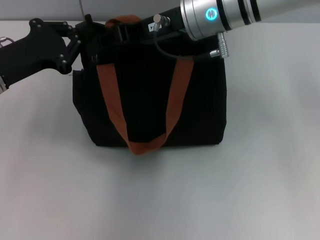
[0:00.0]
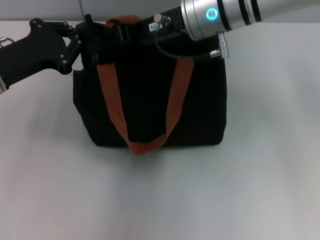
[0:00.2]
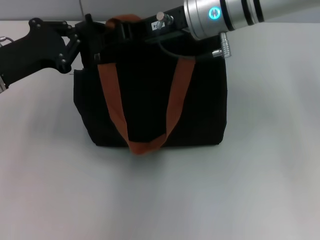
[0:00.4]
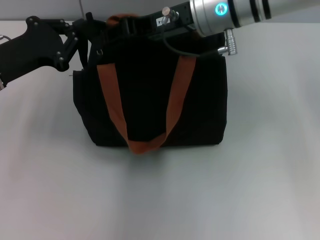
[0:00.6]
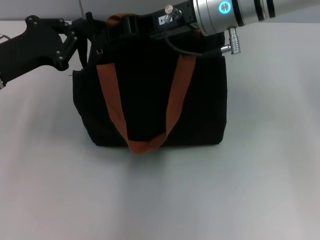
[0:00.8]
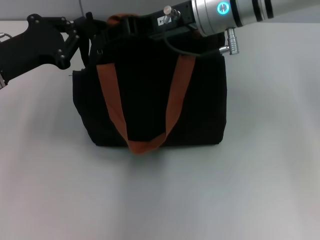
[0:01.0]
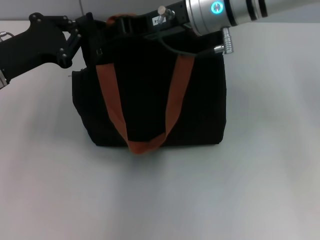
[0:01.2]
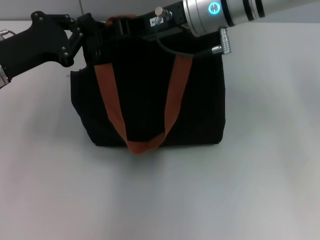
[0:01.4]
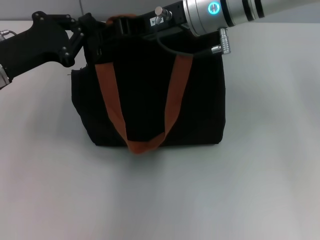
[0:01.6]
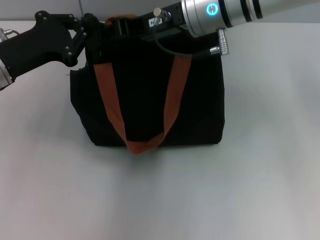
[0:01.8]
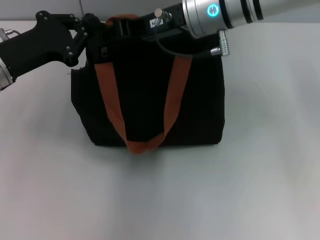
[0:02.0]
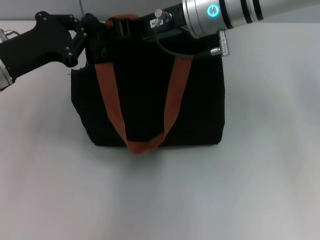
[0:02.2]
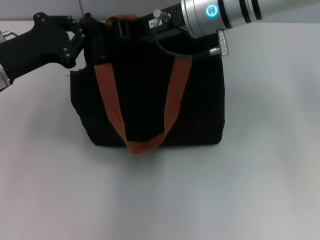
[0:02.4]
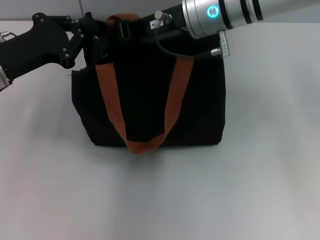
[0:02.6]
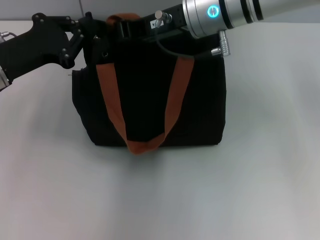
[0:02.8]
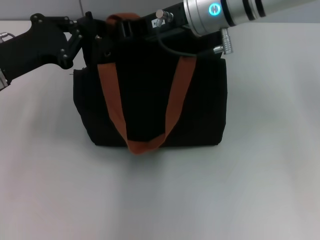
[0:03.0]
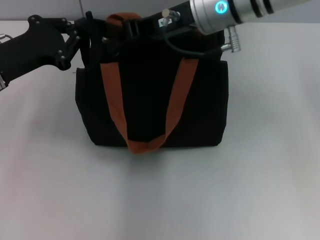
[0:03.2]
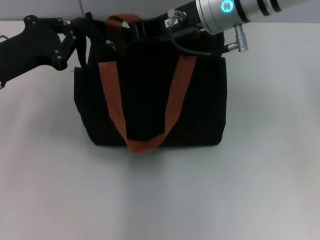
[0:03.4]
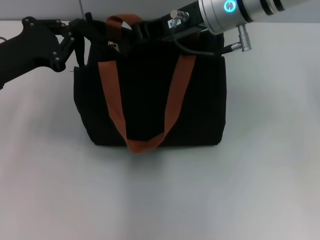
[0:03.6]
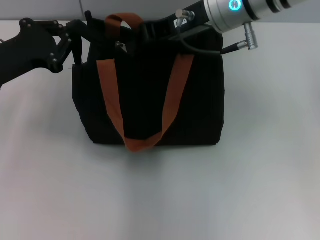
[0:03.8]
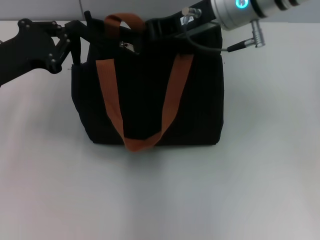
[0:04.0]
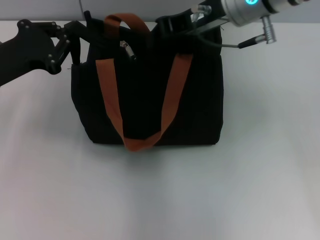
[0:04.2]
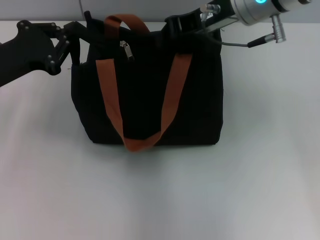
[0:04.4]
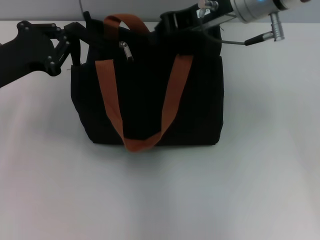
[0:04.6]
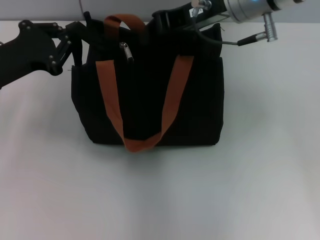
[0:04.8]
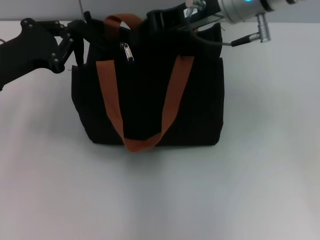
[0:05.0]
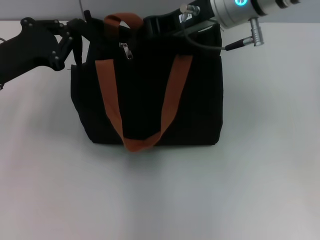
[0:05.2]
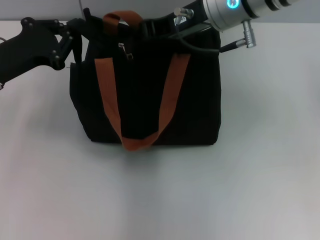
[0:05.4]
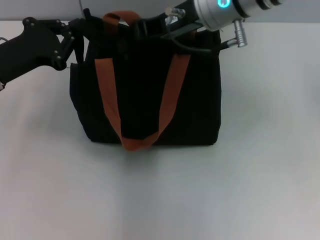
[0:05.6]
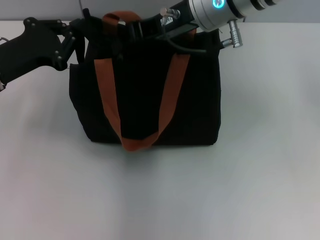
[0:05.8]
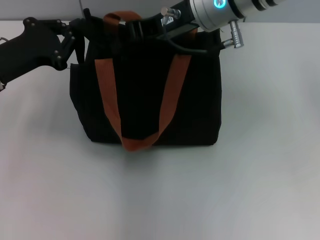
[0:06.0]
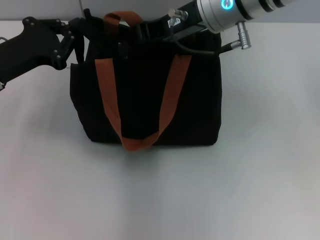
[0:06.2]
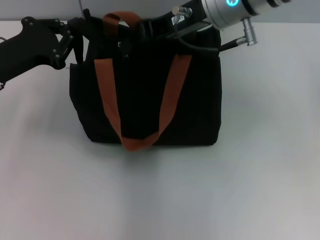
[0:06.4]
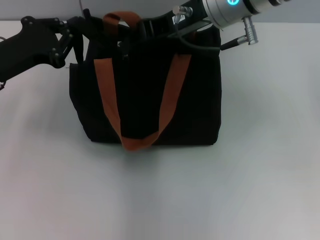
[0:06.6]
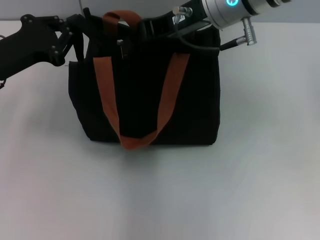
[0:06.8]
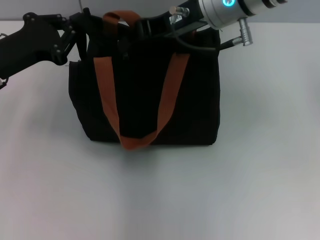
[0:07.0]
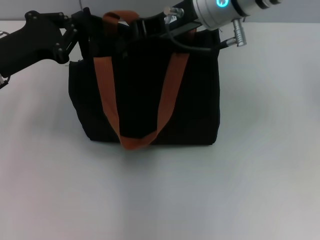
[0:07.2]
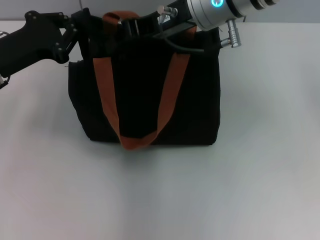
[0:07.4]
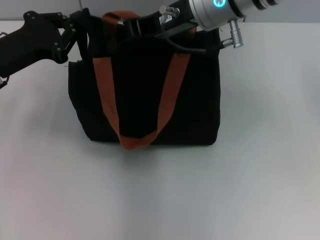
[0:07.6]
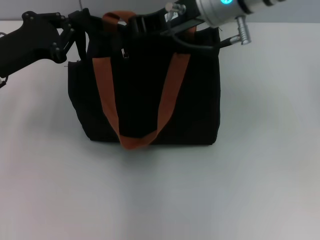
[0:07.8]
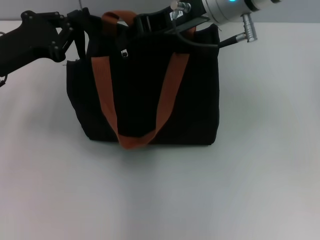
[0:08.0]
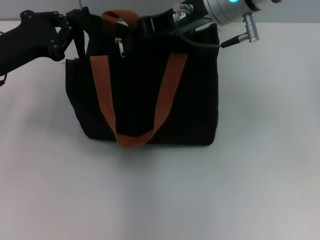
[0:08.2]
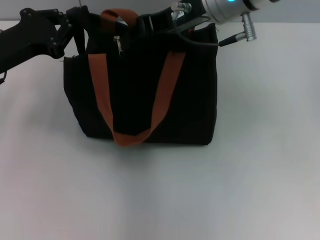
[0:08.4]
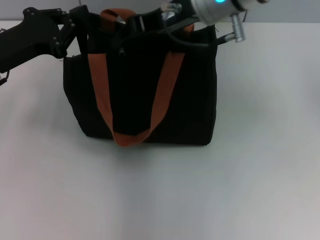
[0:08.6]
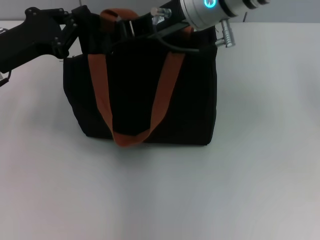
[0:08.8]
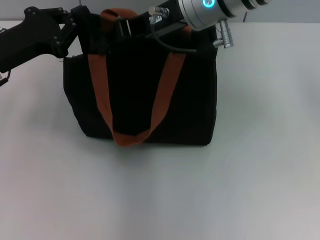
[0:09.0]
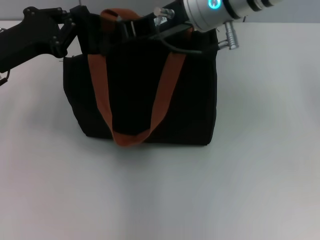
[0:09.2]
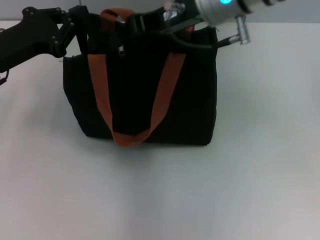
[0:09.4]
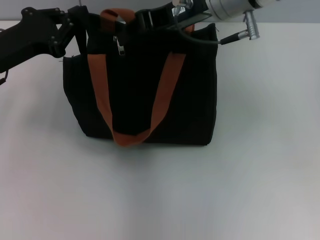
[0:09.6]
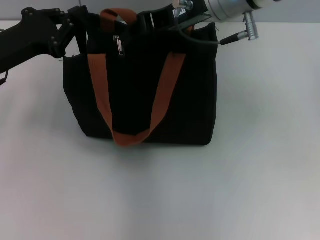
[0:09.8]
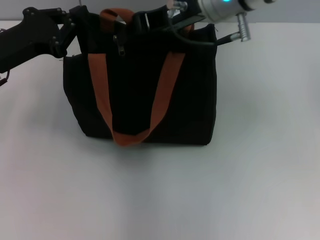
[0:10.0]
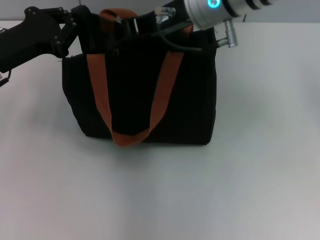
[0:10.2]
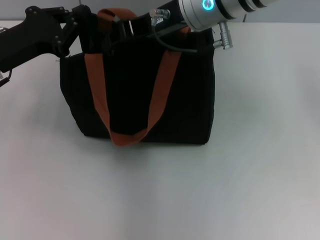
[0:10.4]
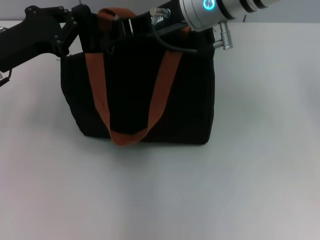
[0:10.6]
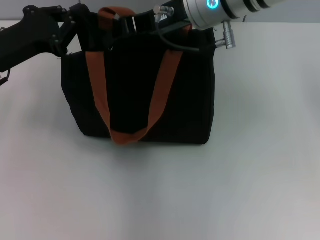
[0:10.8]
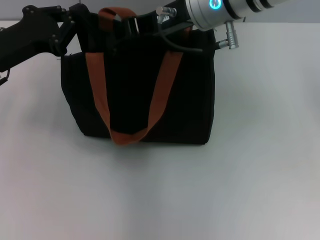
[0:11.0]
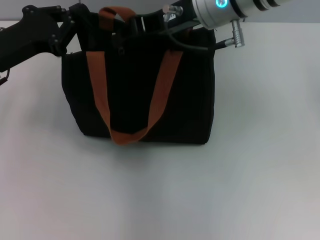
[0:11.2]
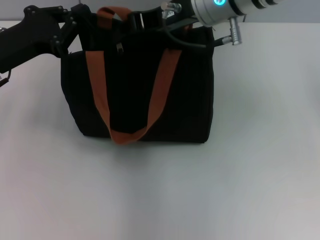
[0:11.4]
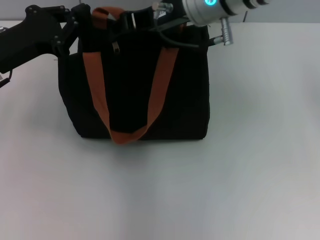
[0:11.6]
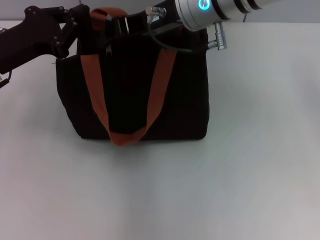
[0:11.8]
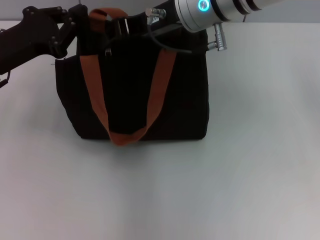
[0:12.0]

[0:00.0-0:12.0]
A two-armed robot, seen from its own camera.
0:00.0 to 0:01.6: The grippers make only small movements.
0:01.6 to 0:03.0: The right gripper closes up.
0:03.0 to 0:04.4: The right gripper shifts by some 5 cm.
0:04.4 to 0:06.0: The grippers move only a little.
0:06.0 to 0:07.6: Both grippers stay put.
0:07.6 to 0:09.0: The two grippers keep their place.
0:09.0 to 0:12.0: The grippers make only small movements.

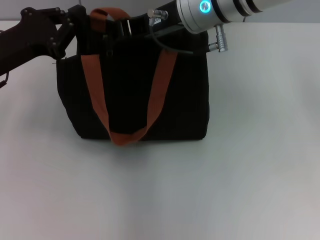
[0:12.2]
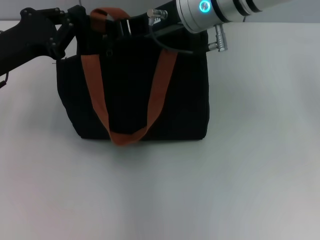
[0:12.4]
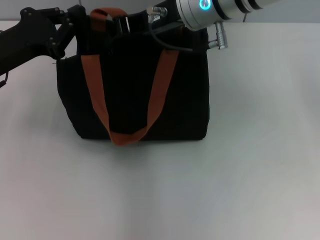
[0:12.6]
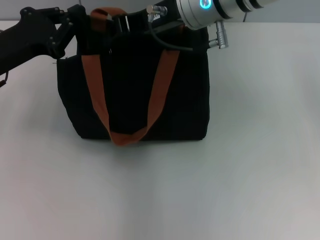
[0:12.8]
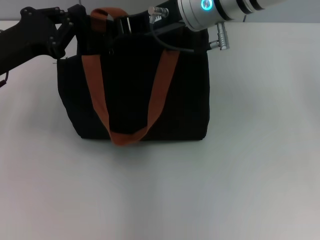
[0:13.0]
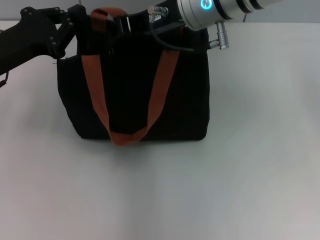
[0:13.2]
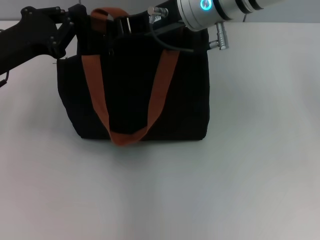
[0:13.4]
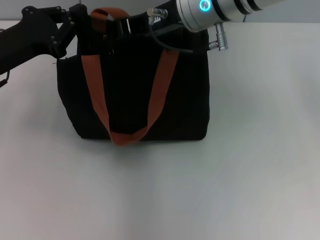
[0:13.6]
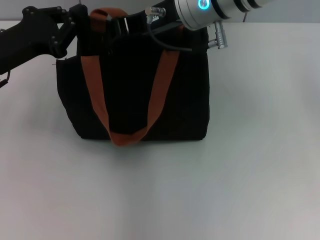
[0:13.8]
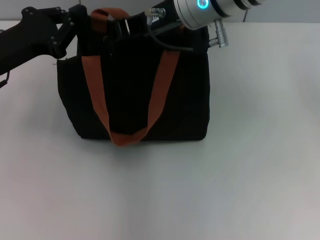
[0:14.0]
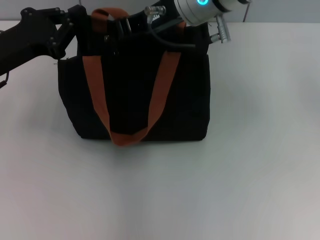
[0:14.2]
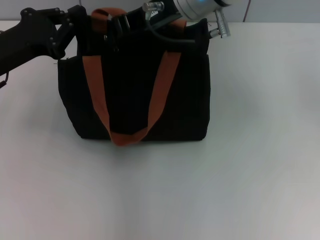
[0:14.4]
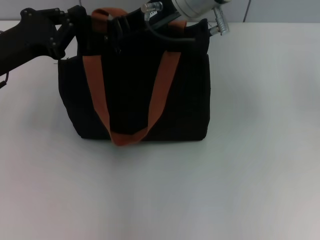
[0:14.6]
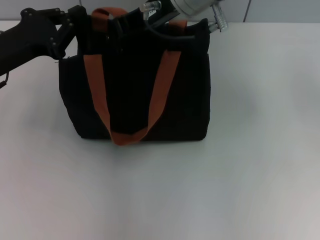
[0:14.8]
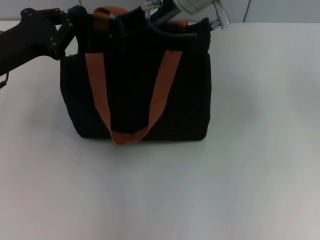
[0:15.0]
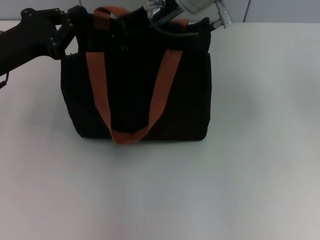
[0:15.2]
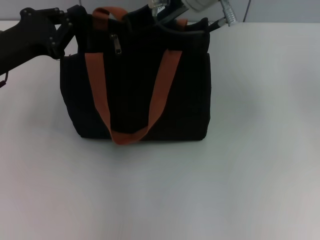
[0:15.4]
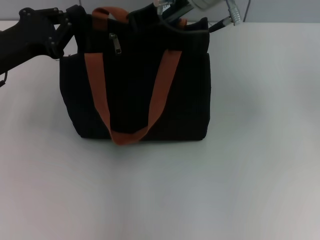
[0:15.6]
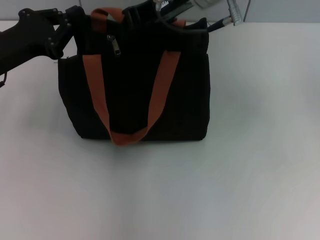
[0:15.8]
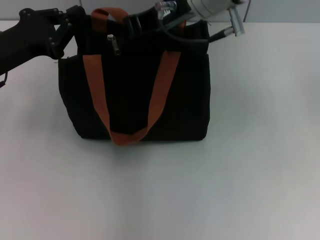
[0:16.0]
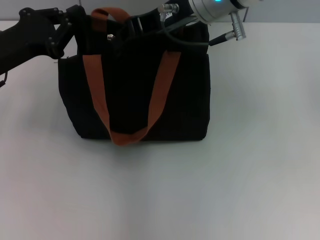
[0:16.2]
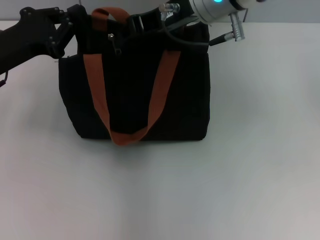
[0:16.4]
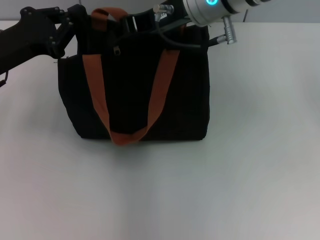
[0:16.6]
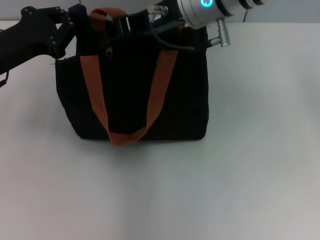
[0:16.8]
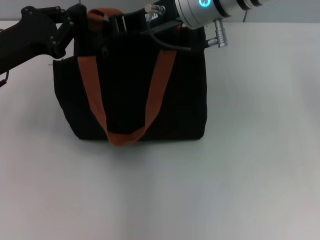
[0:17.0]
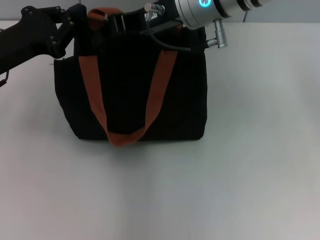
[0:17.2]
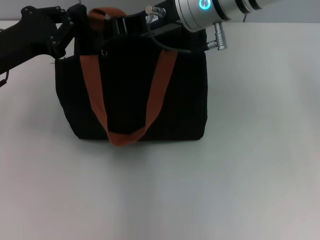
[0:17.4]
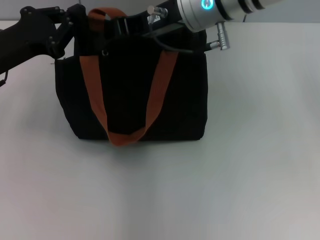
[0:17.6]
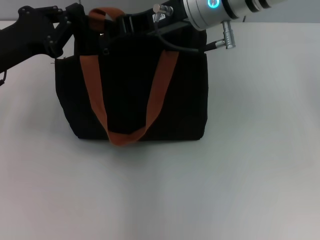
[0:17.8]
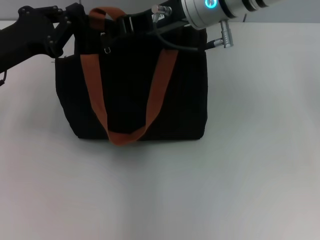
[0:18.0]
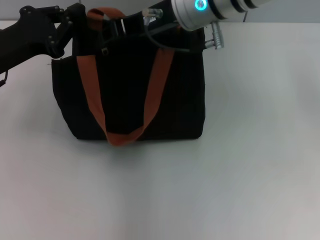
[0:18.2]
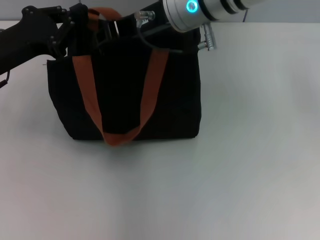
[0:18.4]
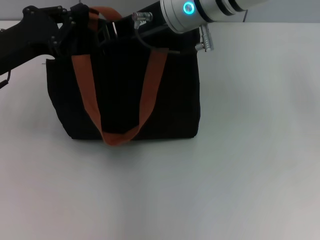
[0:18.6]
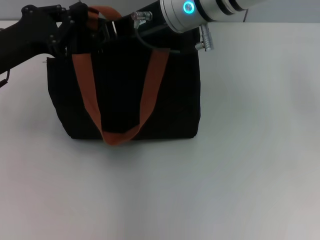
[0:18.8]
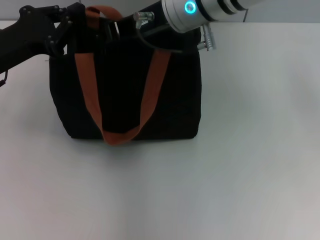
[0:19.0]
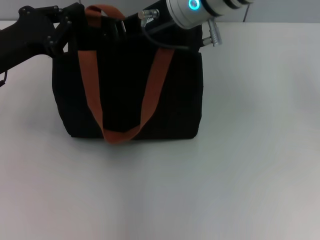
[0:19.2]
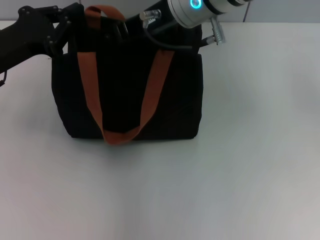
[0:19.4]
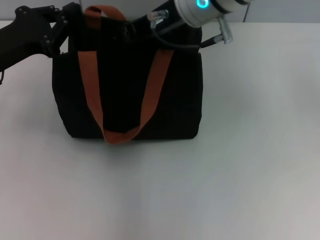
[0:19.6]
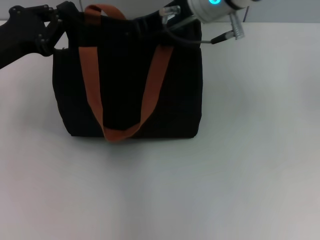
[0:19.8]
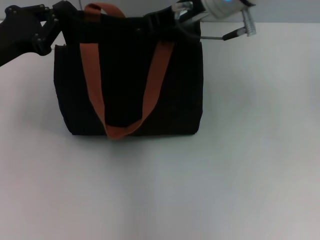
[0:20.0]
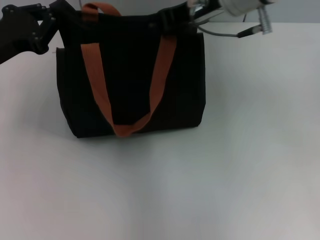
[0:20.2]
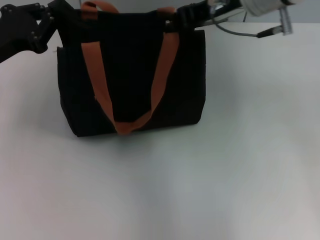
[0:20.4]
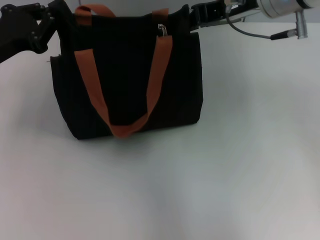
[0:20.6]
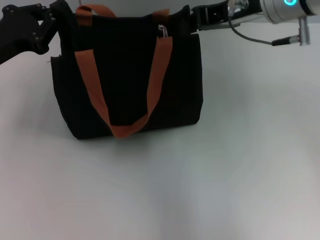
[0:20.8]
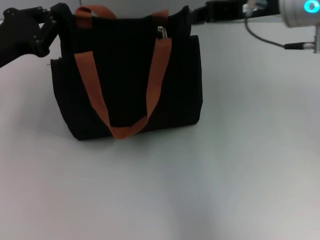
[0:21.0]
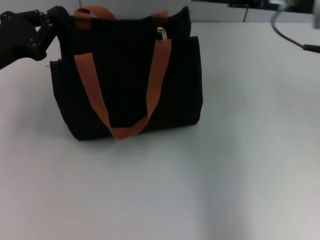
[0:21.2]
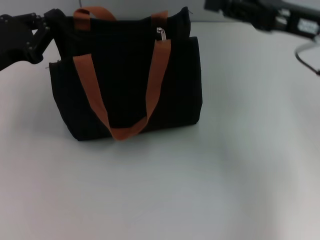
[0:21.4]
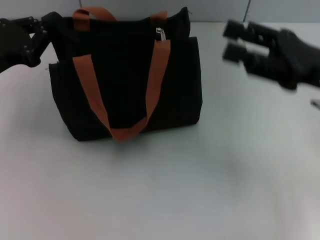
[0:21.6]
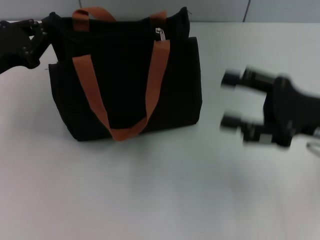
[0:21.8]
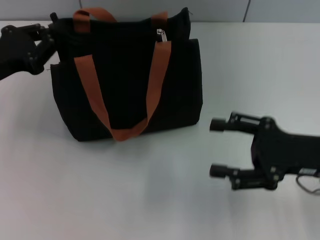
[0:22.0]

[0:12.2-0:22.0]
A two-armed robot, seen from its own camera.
Step, 0:12.2 to 0:21.0: Pull up the zipper with your right hand.
0:12.2 to 0:13.6: Neither gripper changes place.
0:13.6 to 0:19.2: The grippers make only small movements.
0:19.2 to 0:20.6: The right gripper is displaced to the right by roughly 10 cm.
0:20.6 to 0:22.0: The right gripper goes approximately 25 cm downward, backward and to the right, and opens.

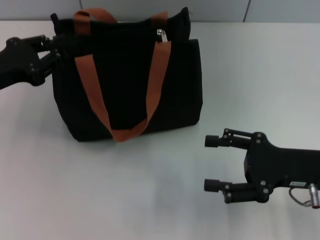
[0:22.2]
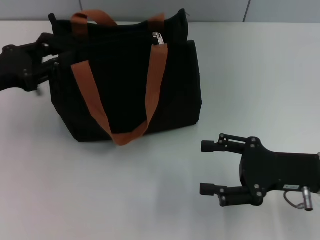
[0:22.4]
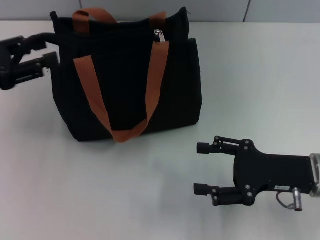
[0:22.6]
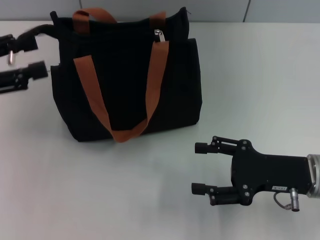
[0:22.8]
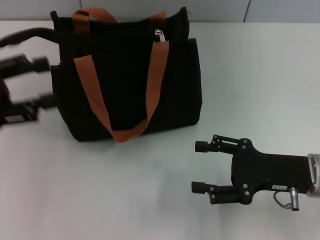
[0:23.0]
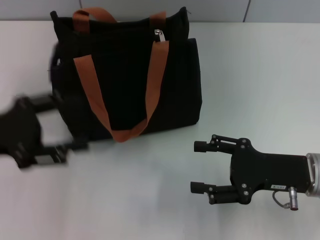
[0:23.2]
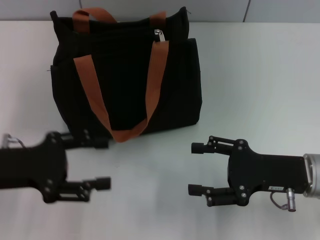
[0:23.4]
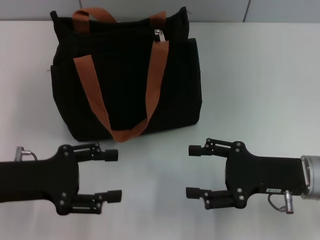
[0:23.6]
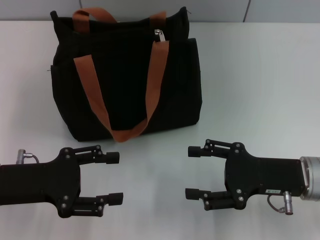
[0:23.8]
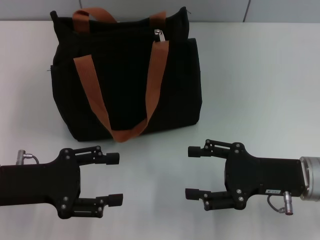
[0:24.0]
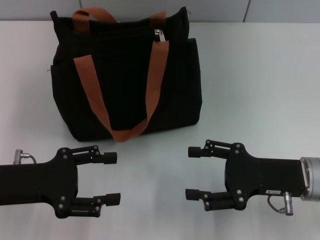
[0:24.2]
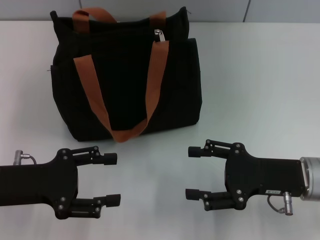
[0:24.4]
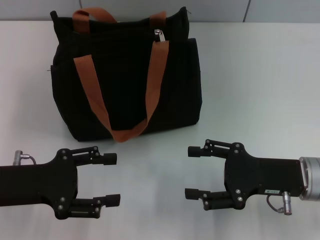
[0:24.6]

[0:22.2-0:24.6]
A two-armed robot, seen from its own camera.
0:22.2 to 0:23.4: The left gripper moves backward, roughly 5 cm, and opens up.
0:23.4 to 0:24.6: There are only small adjustments of the grippers.
